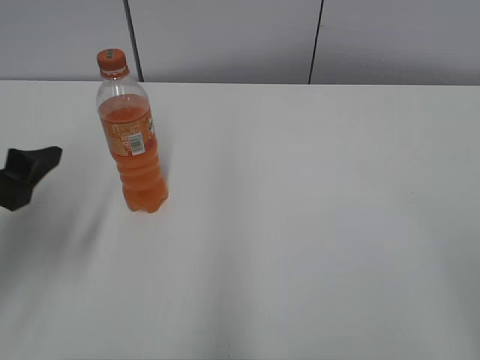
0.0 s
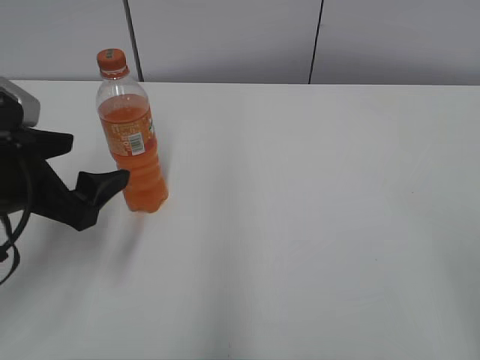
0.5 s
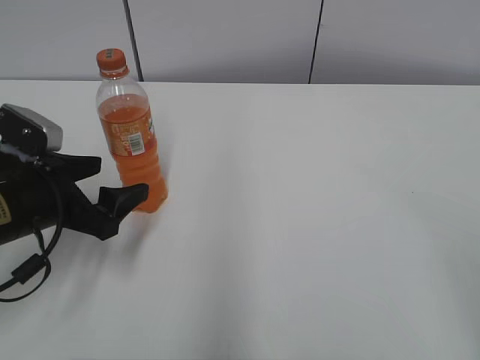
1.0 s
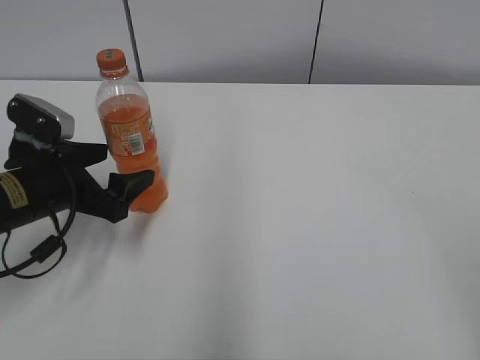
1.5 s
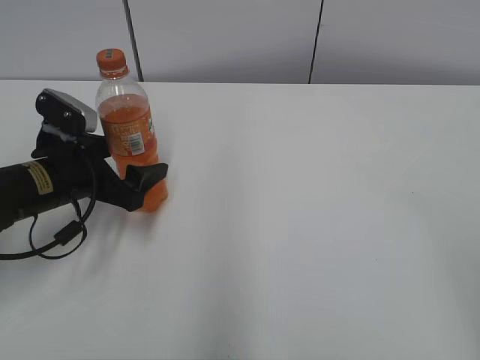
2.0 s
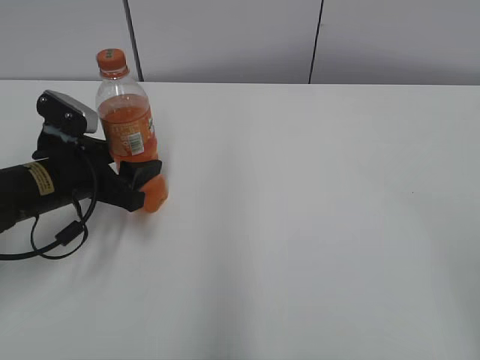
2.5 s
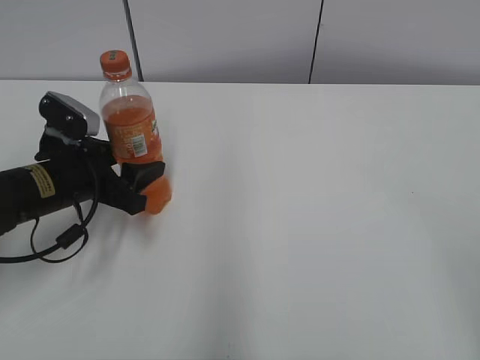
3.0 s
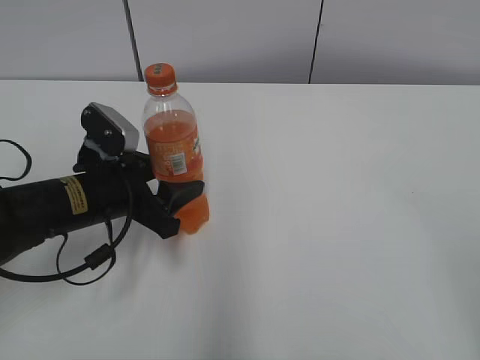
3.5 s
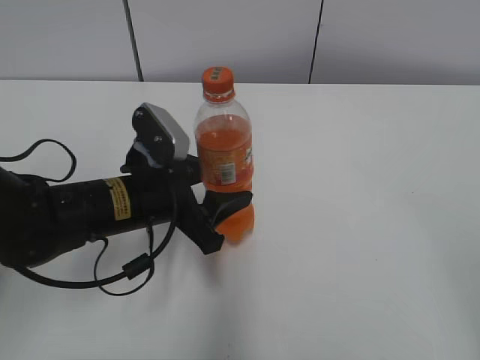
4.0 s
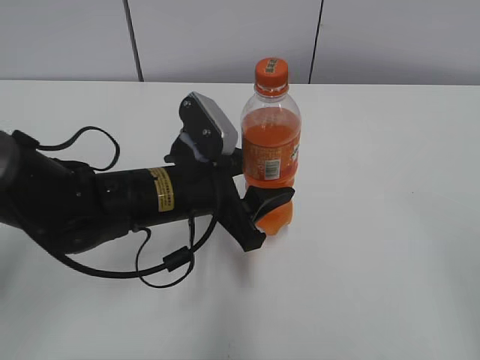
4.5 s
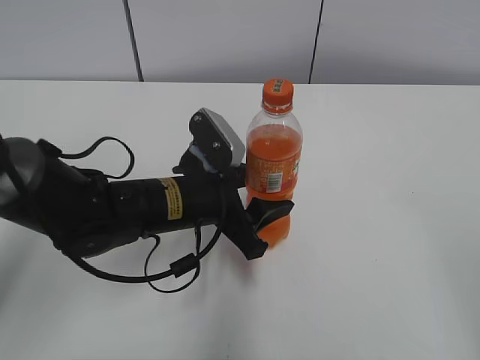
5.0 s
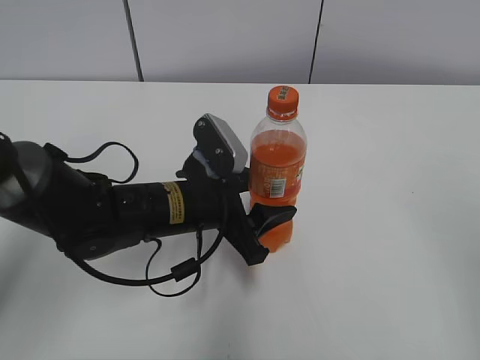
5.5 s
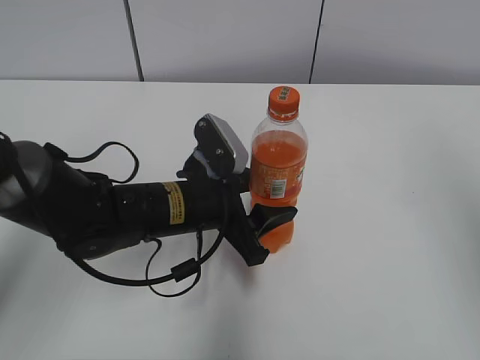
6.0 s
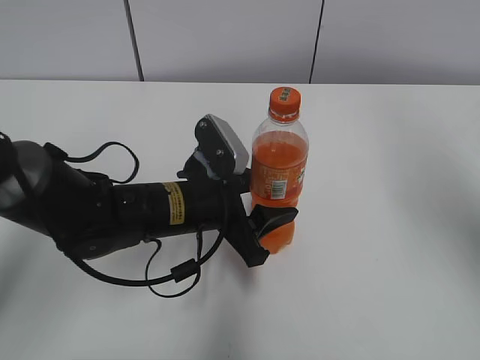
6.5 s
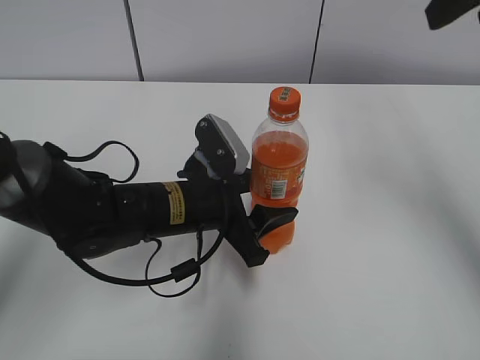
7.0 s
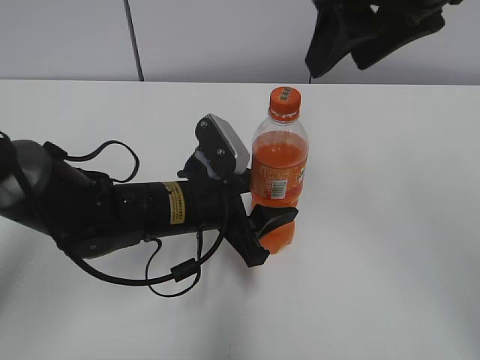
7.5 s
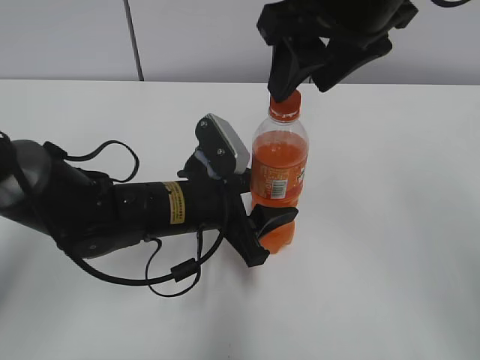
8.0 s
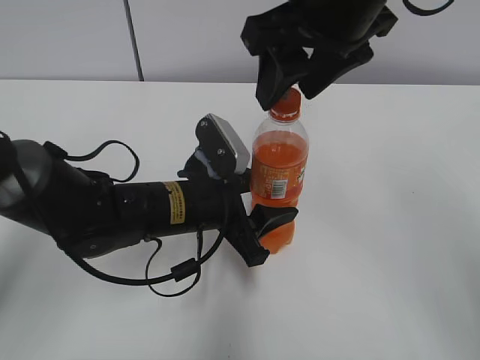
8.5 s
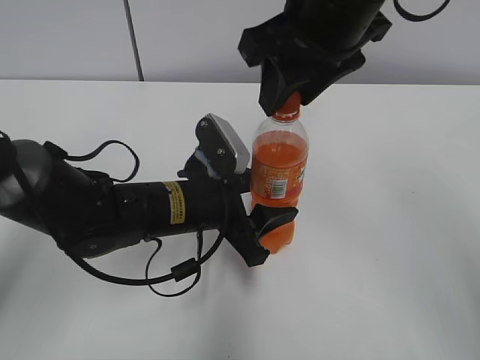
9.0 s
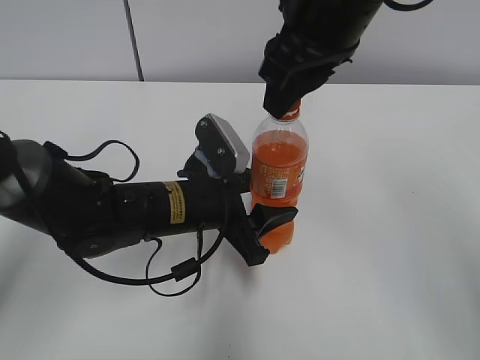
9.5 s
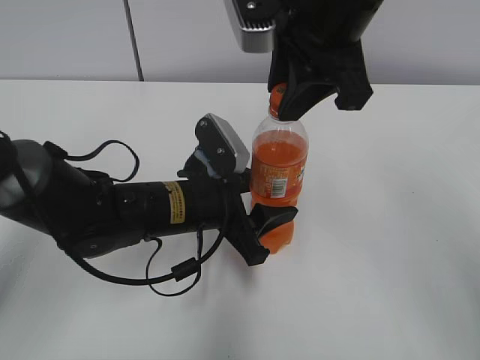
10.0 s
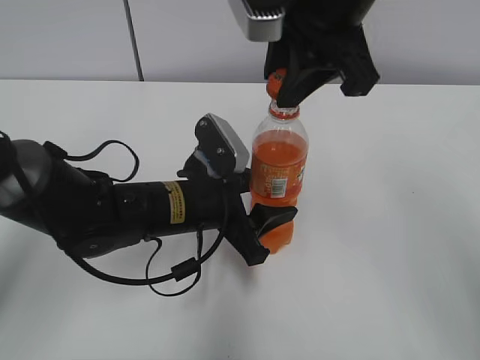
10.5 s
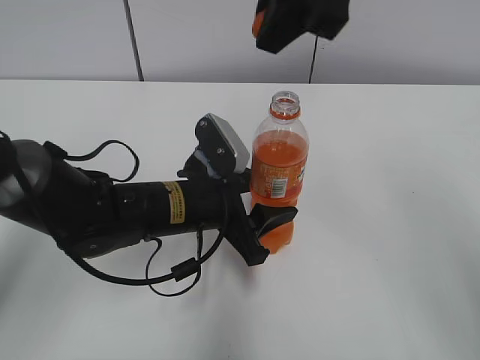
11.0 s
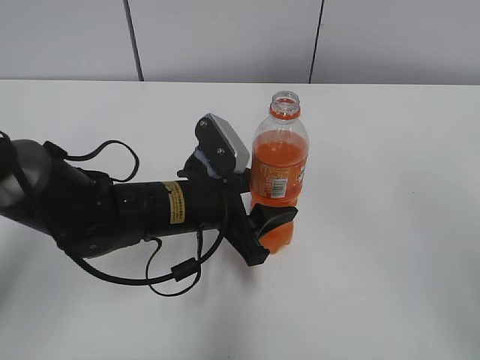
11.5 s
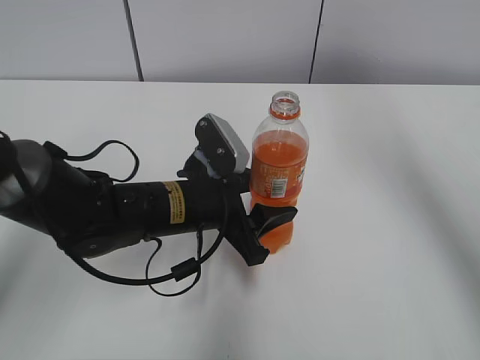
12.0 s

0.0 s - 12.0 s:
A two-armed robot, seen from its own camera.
Step, 0.0 s - 2.0 s: Grab the Mirinda with the left hand.
Step, 2.5 s - 5.0 s: Move the Mirinda from left to right.
0.0 s - 2.0 s: The left gripper travels downward, forward and to the right by about 15 cm.
2.0 s - 4.0 s: The left gripper moves to the right, some 10 cm, and closes its fingers.
4.0 s - 6.0 s: The left gripper changes place by approximately 5 cm, while the right gripper shifts about 15 cm upward and forward.
6.0 s - 8.0 s: The right gripper travels to the left and forward by roughly 25 cm.
8.0 s - 10.0 s: The right gripper closes its fingers.
10.0 s - 12.0 s: The right gripper shifts about 15 cm to the right and upward.

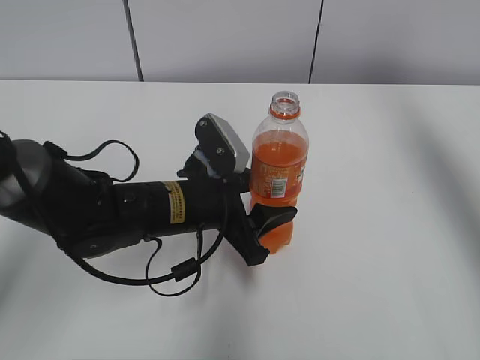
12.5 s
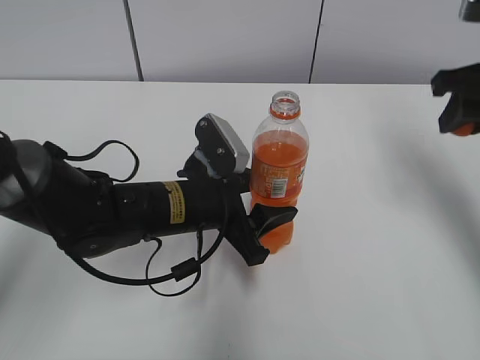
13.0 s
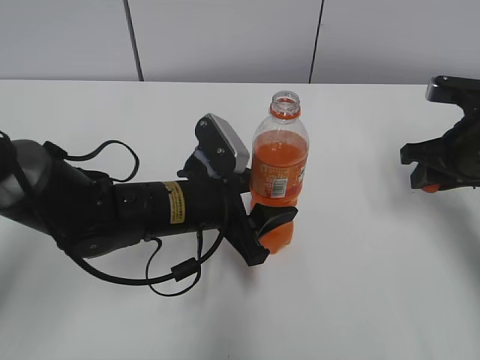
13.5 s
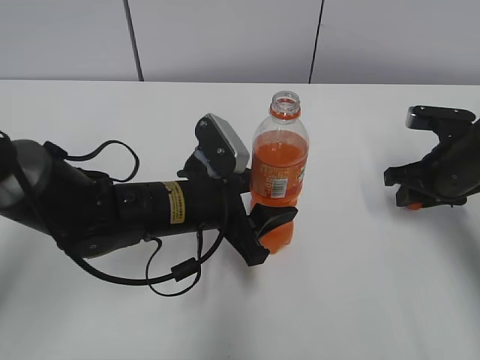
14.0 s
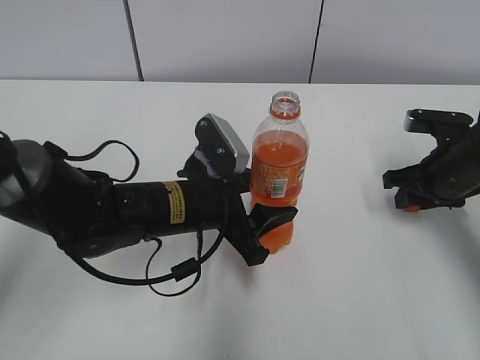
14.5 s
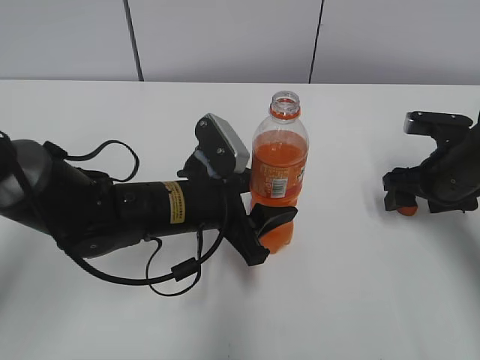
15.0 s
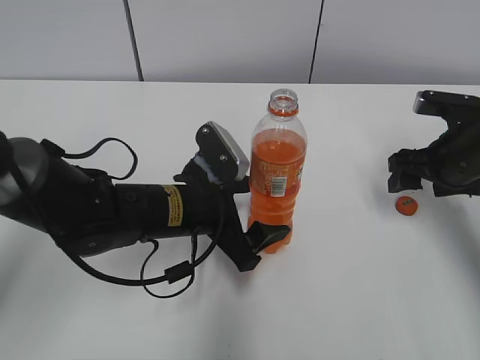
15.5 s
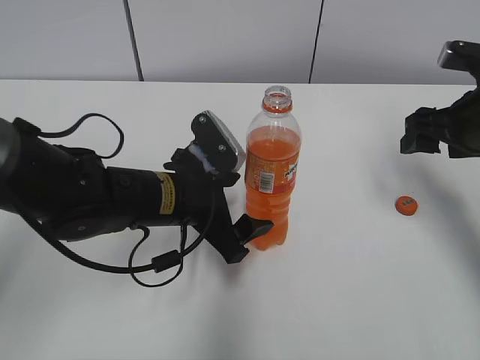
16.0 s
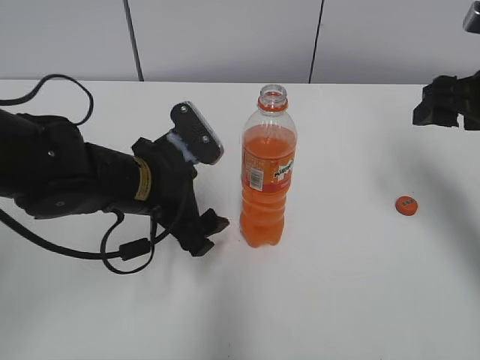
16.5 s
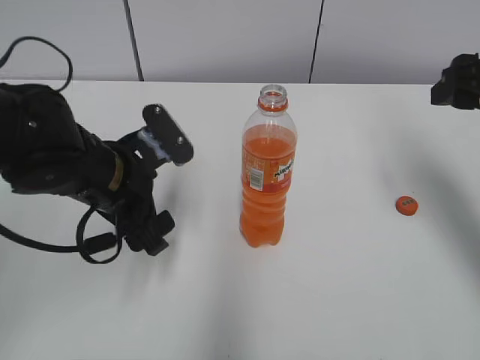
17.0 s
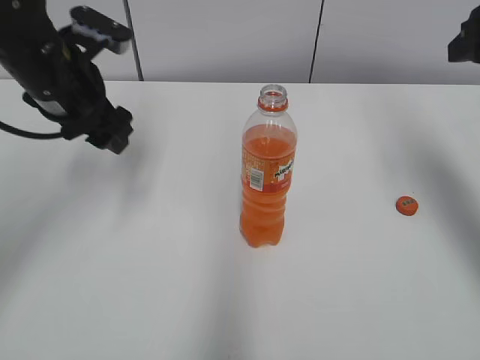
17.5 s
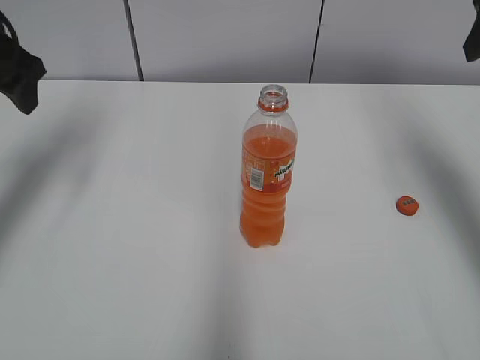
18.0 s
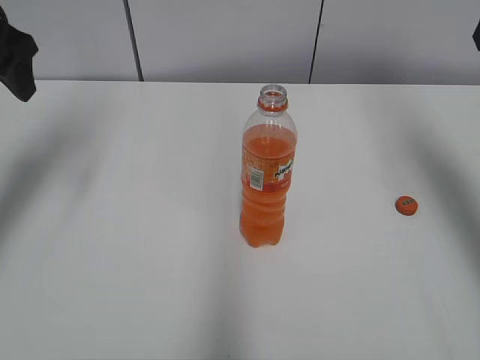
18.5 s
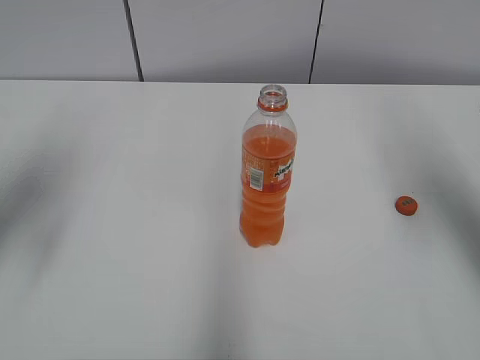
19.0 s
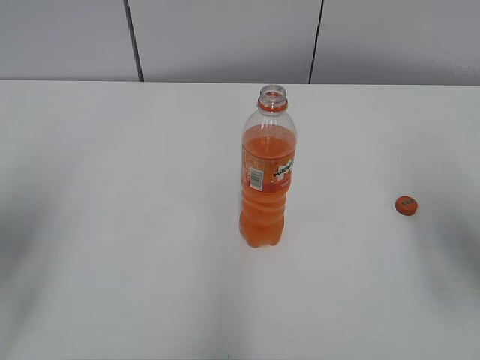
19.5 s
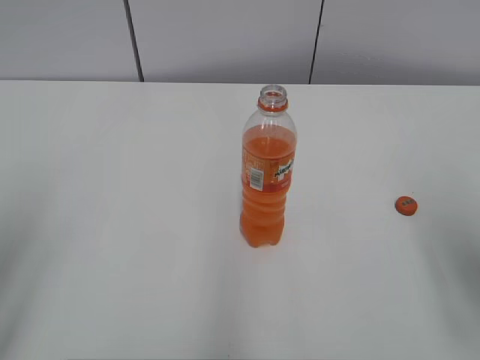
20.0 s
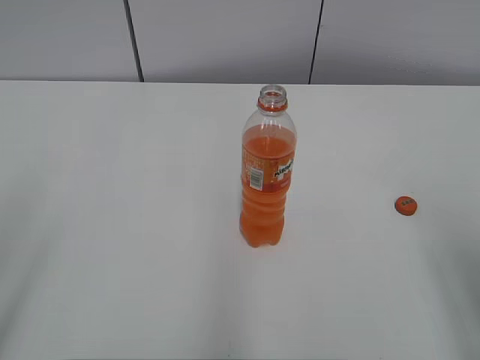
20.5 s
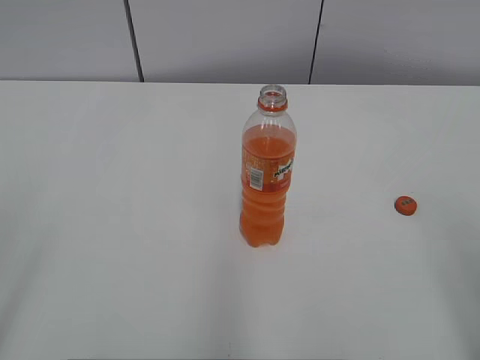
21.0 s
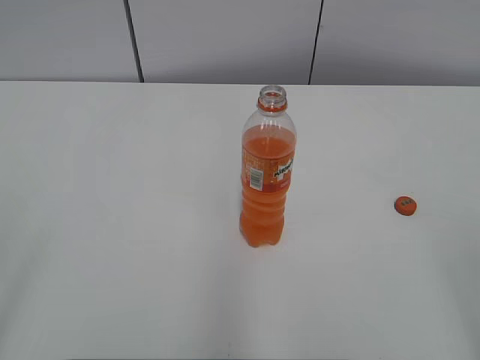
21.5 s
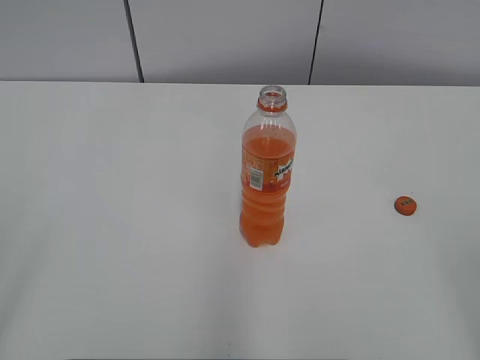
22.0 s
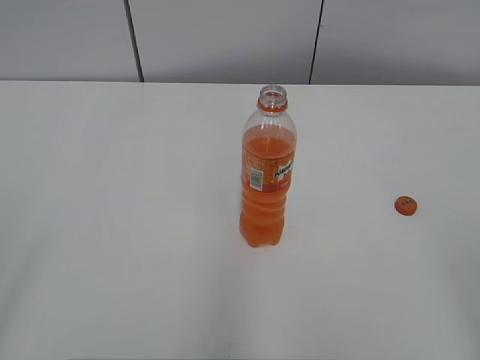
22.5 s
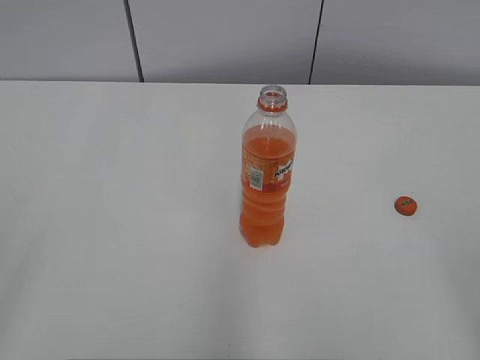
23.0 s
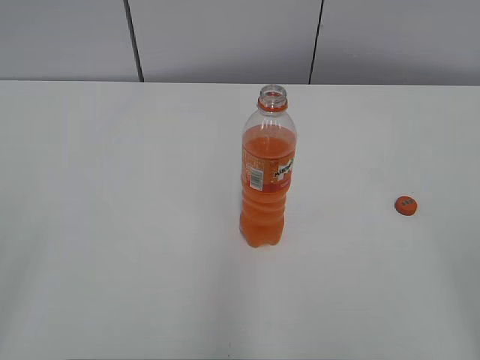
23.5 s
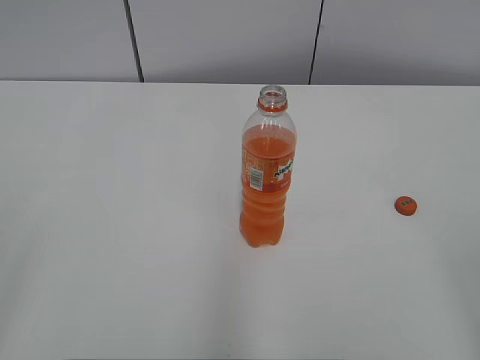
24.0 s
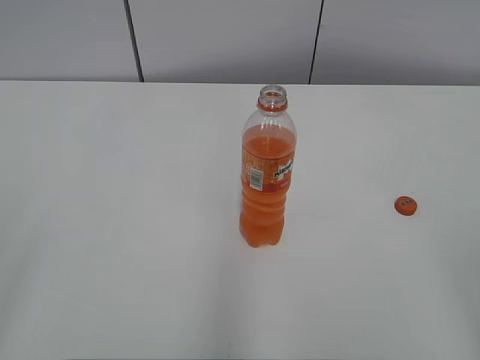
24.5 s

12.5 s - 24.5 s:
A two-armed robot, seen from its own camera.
Step, 12.5 s - 14.5 s: Place the bottle cap on the right.
12.5 s - 14.5 s: The right gripper is displaced downward by about 30 cm.
14.5 s - 16.5 s: The left gripper changes place by some 5 cm, and opens. Meanwhile the right gripper travels upward by about 15 cm, and opens its fingers.
16.5 s - 18.5 s: The left gripper heads upward and to the left, covering roughly 25 cm; the right gripper shifts about 15 cm upward.
18.5 s - 20.5 s: The right gripper heads backward and downward, covering some 25 cm. Meanwhile the left gripper is displaced backward by roughly 30 cm.

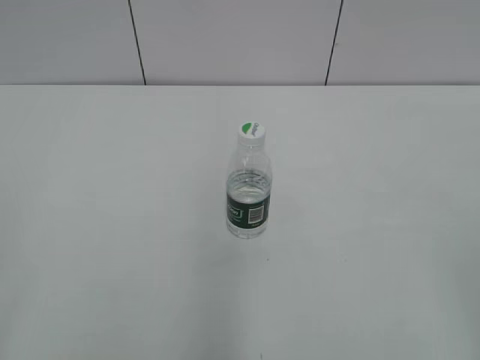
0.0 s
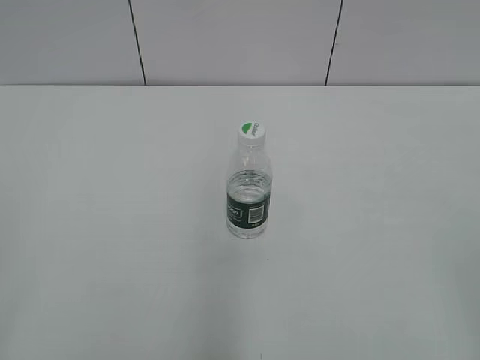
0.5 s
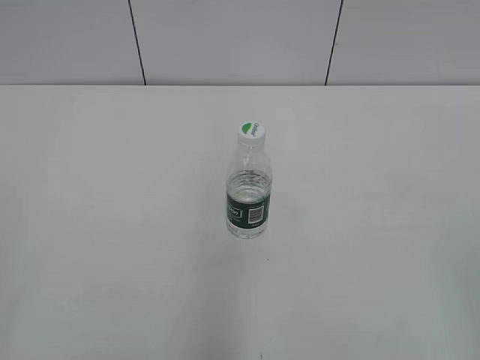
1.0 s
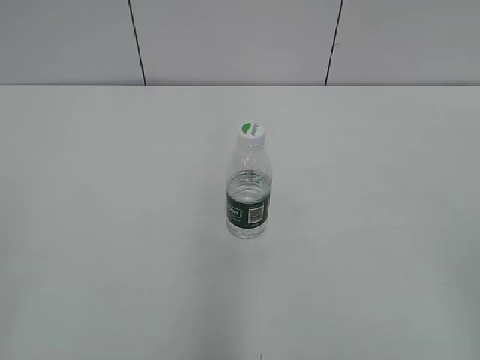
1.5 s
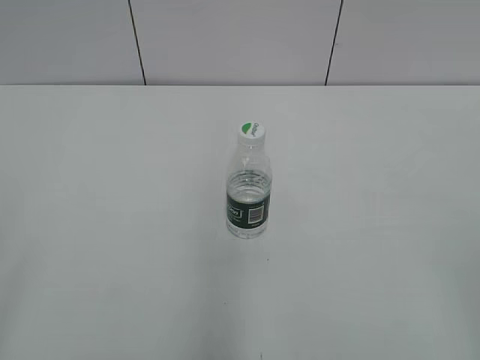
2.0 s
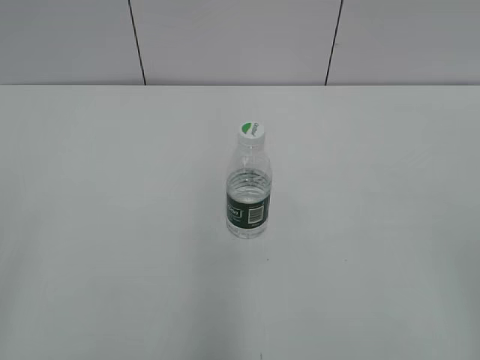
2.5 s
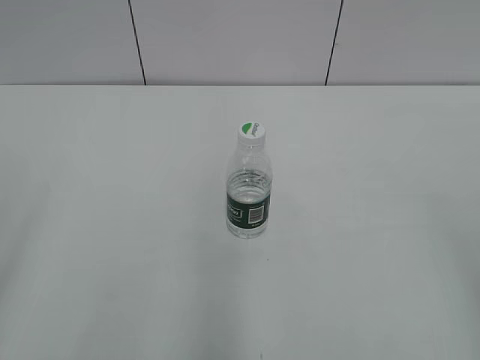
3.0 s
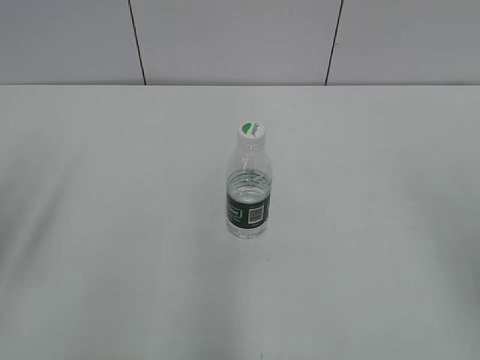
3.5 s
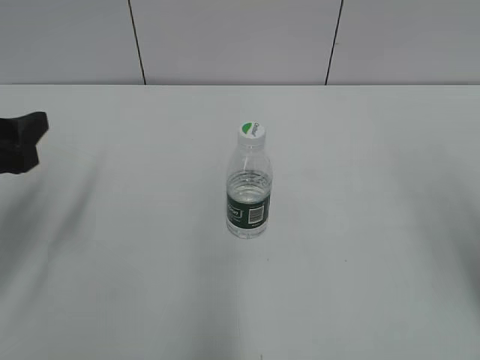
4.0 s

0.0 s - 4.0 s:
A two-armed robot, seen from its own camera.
2.0 s - 4.0 s: The right gripper moves forward, about 15 cm; the left gripper shifts approximately 25 cm forward.
